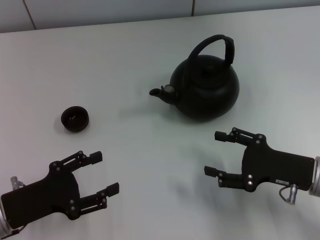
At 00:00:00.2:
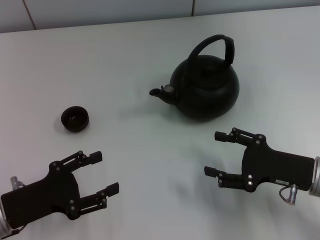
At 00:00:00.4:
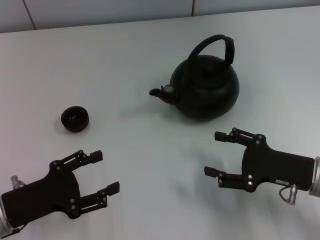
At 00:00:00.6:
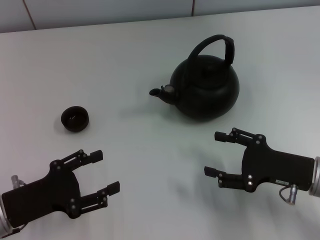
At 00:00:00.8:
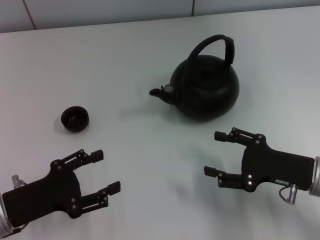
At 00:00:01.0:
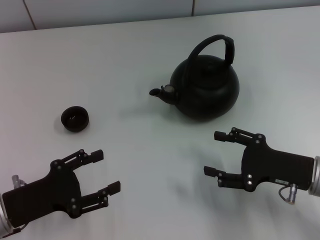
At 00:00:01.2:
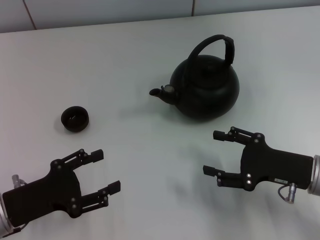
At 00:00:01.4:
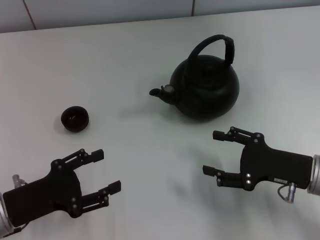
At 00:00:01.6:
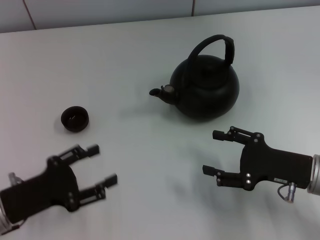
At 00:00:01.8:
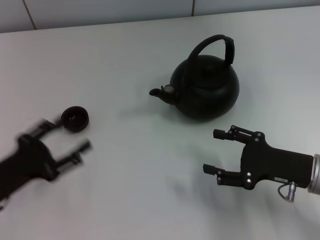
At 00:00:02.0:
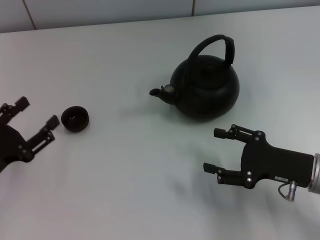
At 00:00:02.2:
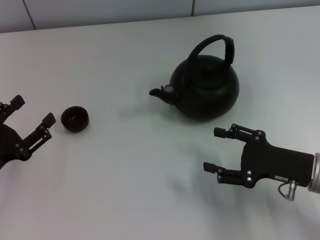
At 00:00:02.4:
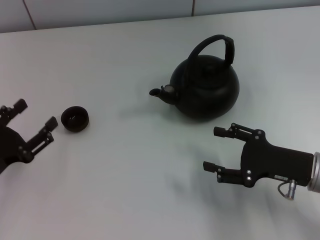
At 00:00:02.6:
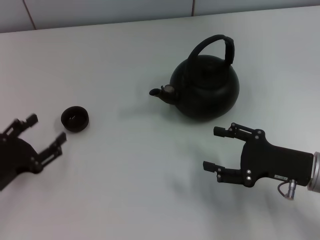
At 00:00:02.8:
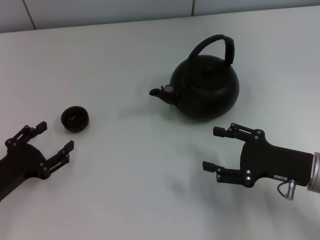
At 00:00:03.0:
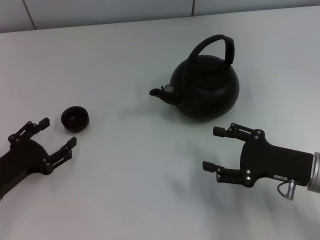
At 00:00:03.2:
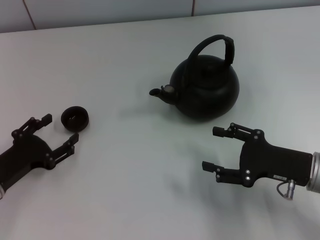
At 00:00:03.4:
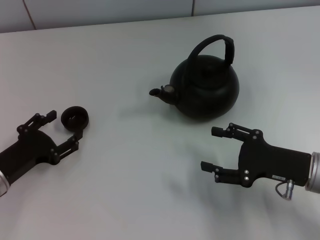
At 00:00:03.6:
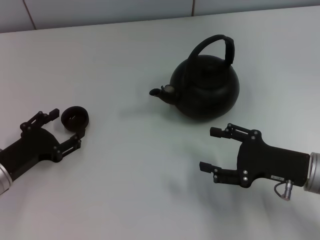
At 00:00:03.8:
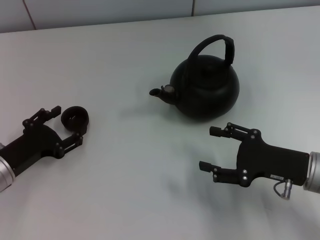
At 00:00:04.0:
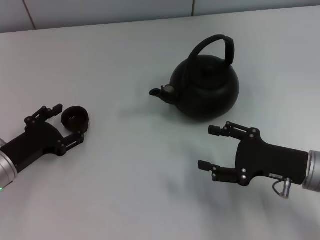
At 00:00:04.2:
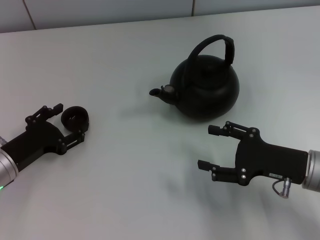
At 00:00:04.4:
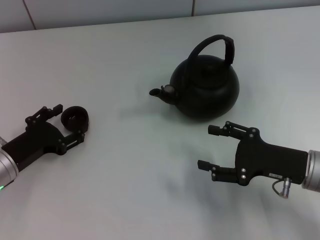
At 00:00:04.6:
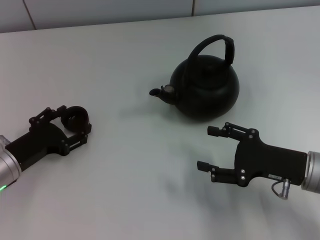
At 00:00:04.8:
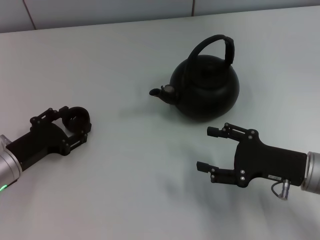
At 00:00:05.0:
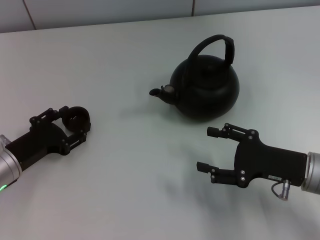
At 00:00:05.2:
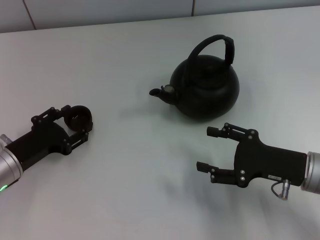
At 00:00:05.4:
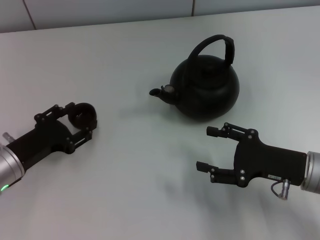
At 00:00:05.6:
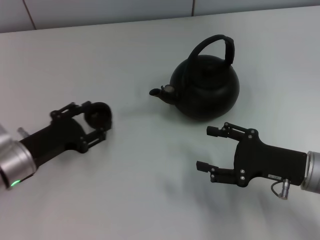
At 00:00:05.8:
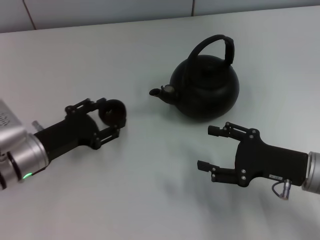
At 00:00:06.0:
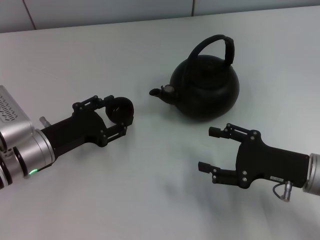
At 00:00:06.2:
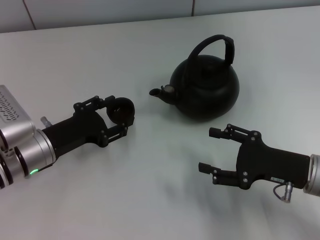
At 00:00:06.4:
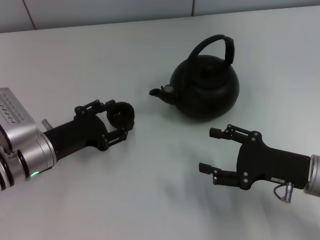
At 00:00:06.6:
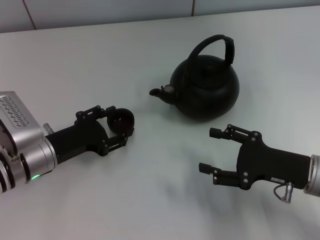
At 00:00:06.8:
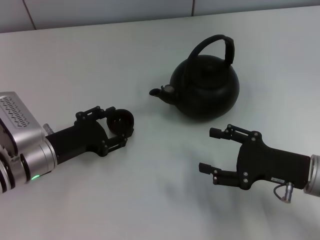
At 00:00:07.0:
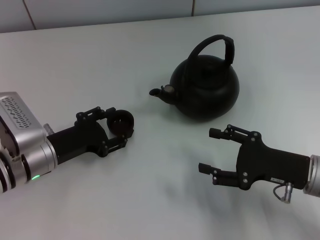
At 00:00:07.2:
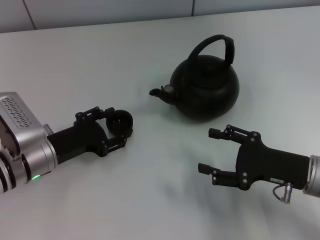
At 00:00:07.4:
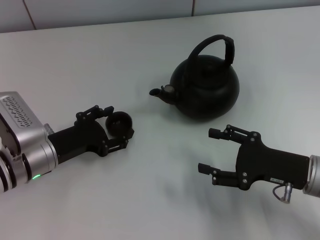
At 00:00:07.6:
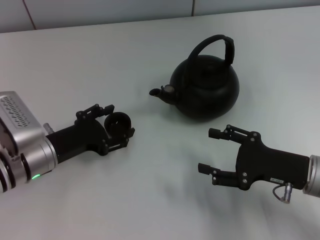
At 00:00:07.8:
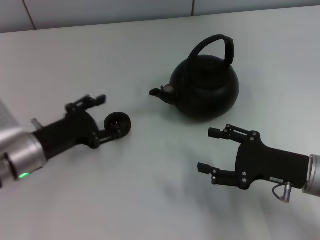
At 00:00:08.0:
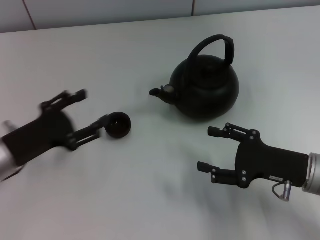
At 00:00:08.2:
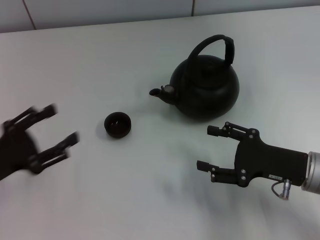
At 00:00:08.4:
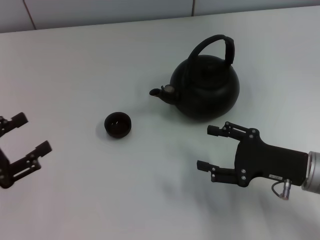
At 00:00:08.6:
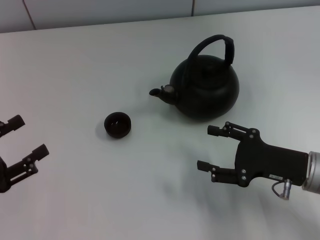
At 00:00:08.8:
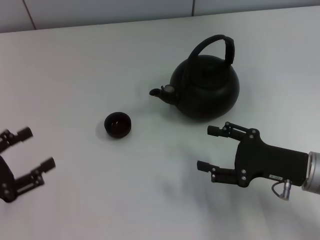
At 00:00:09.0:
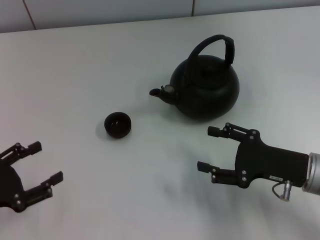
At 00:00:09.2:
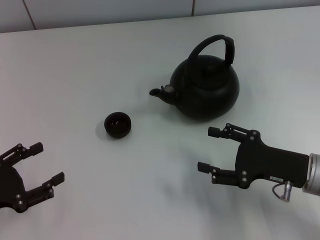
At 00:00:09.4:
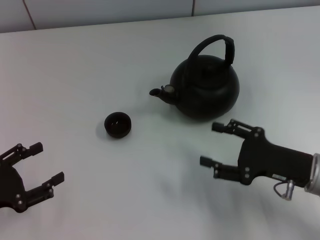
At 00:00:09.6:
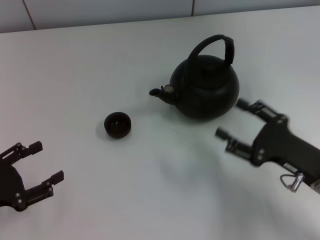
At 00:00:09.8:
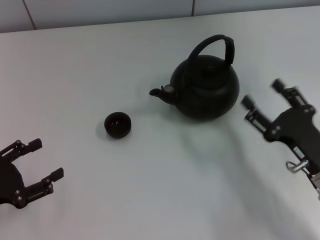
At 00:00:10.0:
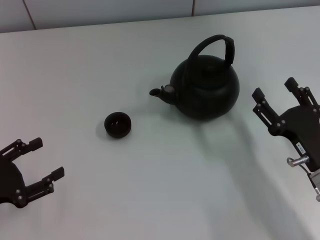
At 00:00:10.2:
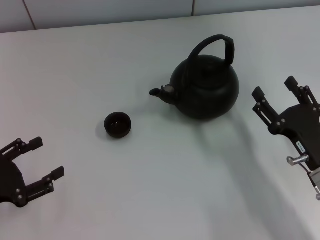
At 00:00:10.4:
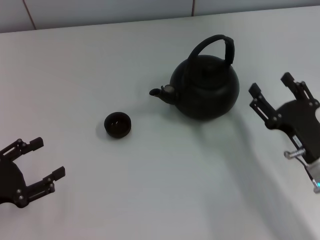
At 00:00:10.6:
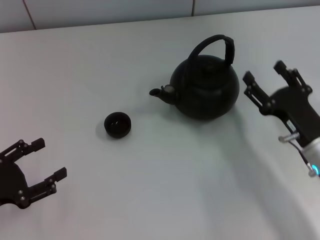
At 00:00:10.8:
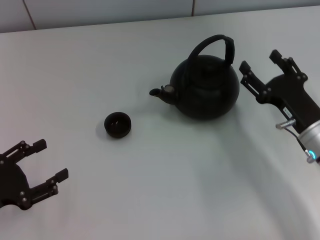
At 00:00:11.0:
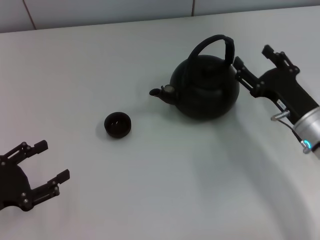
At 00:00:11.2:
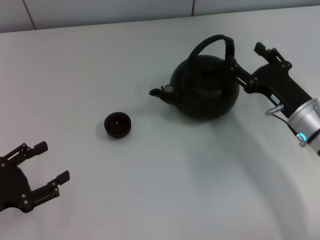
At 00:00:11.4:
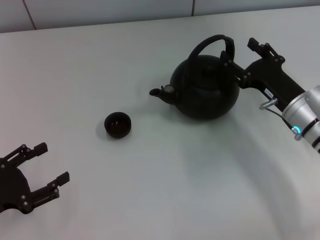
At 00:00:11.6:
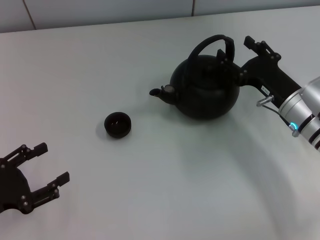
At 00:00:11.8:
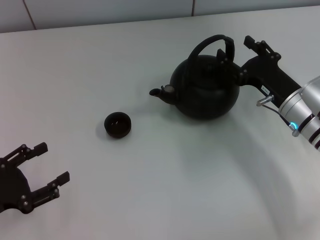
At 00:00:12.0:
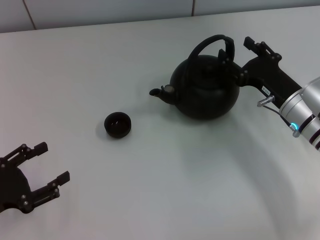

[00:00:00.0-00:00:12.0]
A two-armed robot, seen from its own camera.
Task of the whole recording: Grasp the handle of the teapot with one hand and pour tea into the teacup.
Step, 00:00:00.0 to 00:00:05.6: Pick up the teacup with the left gripper.
Step, 00:00:05.8 to 00:00:08.0: Place the teacup in the center of view with the left gripper.
00:00:00.0 to 00:00:01.6: Neither gripper changes place.
00:00:03.0 to 00:00:04.4: The left gripper moves approximately 5 cm.
00:00:04.4 to 00:00:06.0: The left gripper travels to the right by about 5 cm, and closes.
00:00:06.0 to 00:00:07.6: The left gripper opens.
00:00:07.6 to 00:00:09.0: The left gripper goes some 15 cm to the left and backward.
00:00:10.4 to 00:00:12.0: The right gripper moves forward, some 10 cm.

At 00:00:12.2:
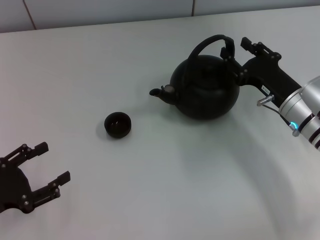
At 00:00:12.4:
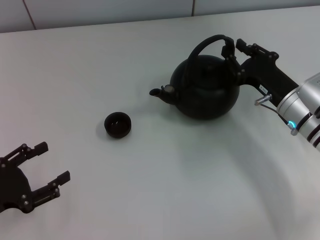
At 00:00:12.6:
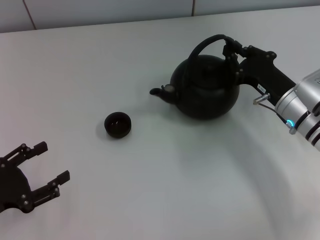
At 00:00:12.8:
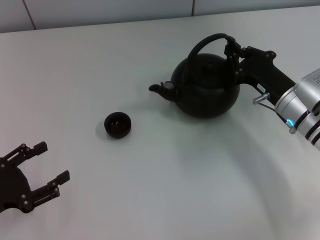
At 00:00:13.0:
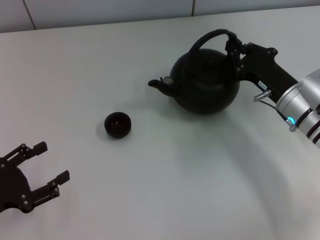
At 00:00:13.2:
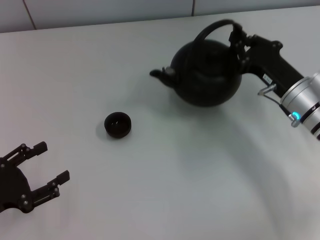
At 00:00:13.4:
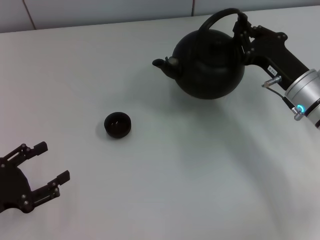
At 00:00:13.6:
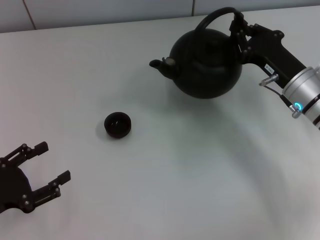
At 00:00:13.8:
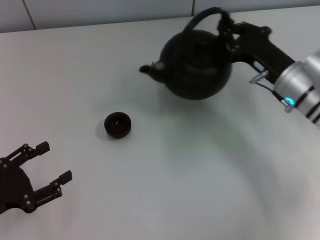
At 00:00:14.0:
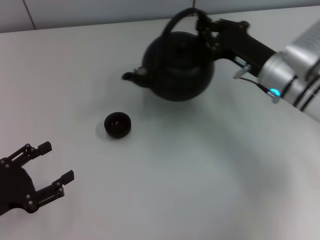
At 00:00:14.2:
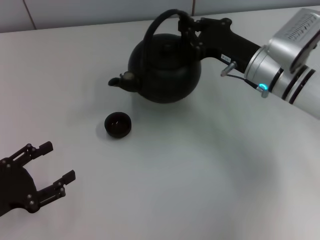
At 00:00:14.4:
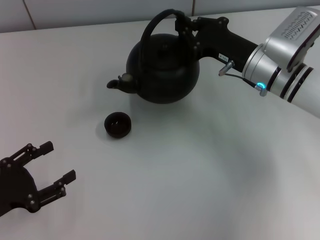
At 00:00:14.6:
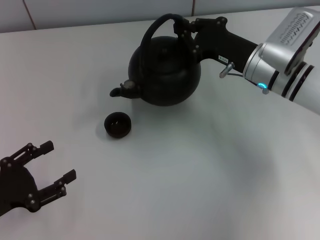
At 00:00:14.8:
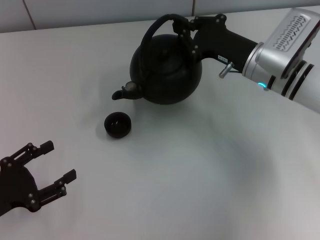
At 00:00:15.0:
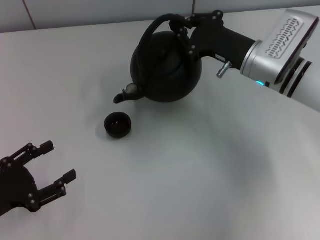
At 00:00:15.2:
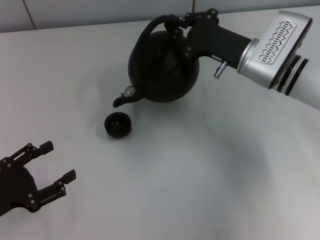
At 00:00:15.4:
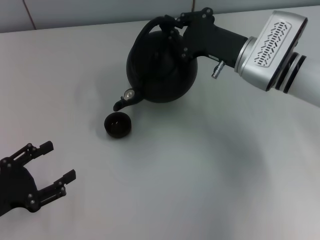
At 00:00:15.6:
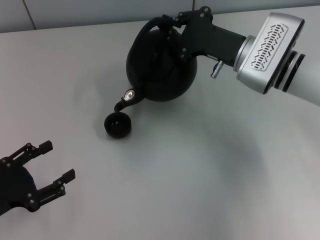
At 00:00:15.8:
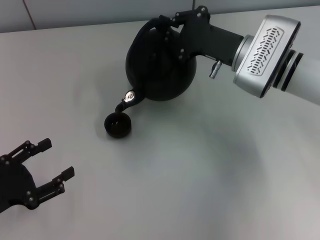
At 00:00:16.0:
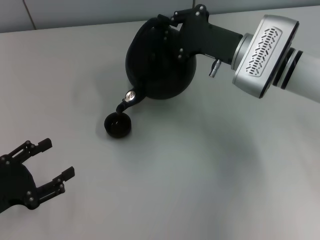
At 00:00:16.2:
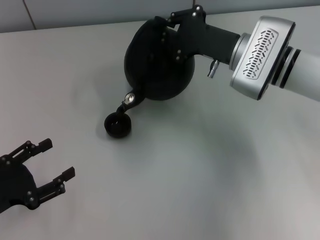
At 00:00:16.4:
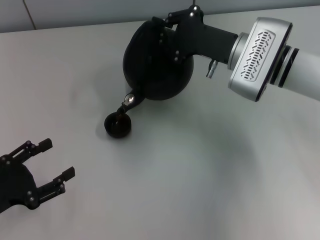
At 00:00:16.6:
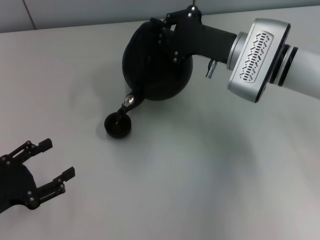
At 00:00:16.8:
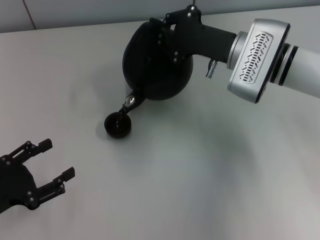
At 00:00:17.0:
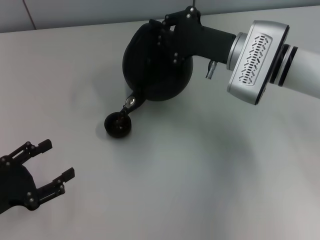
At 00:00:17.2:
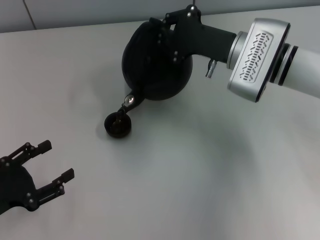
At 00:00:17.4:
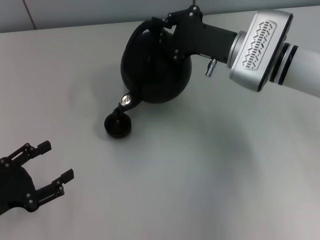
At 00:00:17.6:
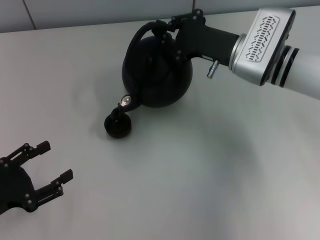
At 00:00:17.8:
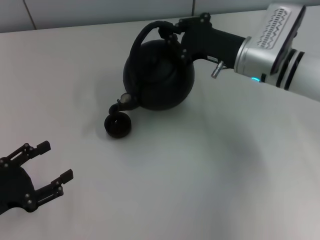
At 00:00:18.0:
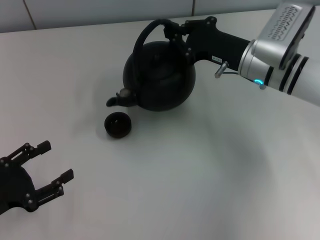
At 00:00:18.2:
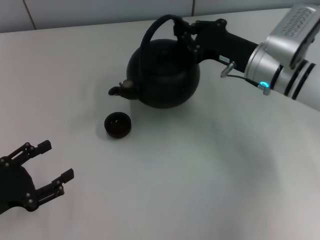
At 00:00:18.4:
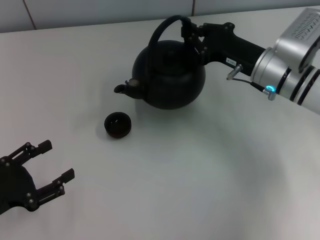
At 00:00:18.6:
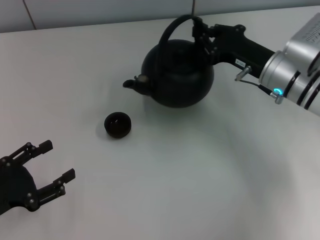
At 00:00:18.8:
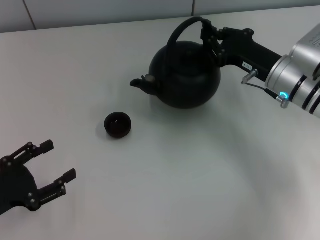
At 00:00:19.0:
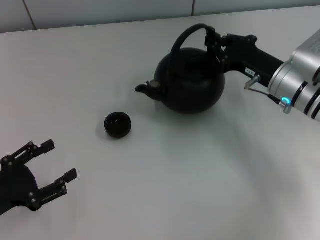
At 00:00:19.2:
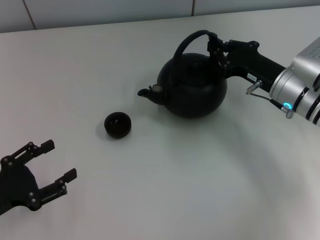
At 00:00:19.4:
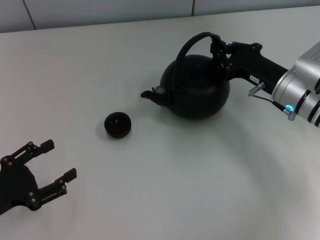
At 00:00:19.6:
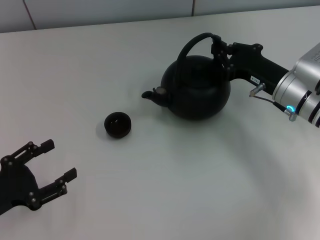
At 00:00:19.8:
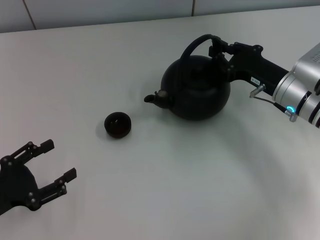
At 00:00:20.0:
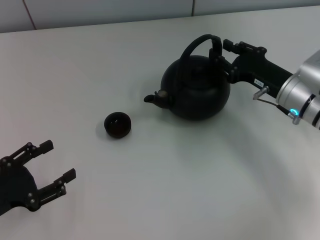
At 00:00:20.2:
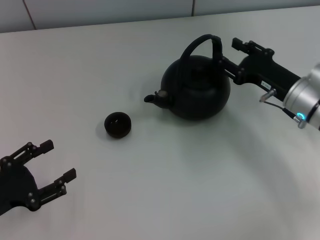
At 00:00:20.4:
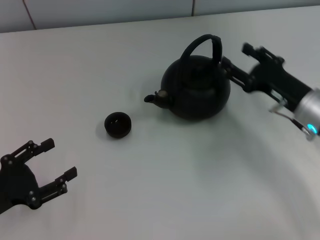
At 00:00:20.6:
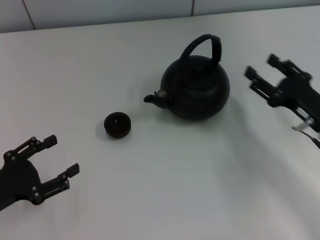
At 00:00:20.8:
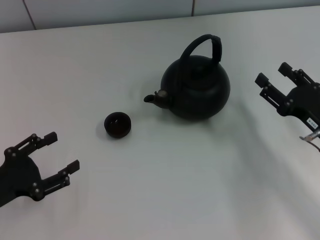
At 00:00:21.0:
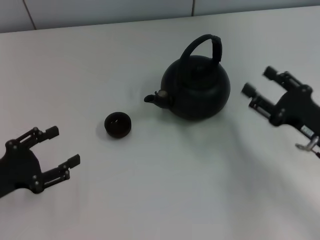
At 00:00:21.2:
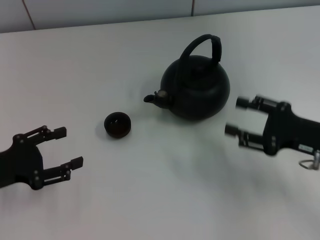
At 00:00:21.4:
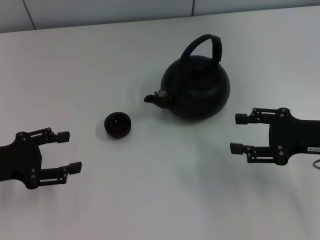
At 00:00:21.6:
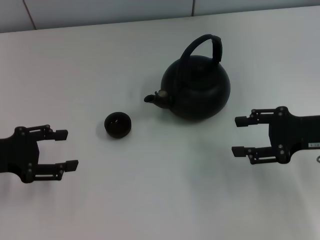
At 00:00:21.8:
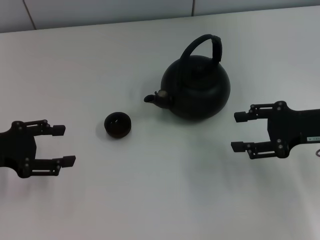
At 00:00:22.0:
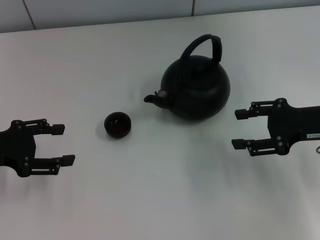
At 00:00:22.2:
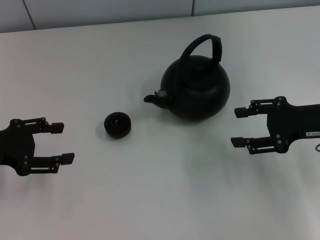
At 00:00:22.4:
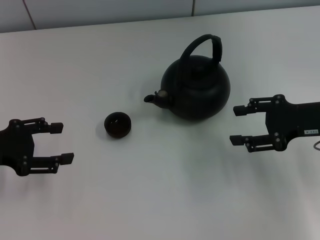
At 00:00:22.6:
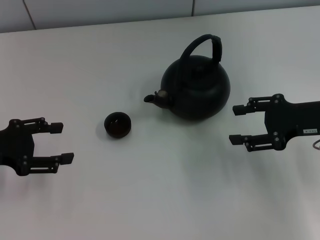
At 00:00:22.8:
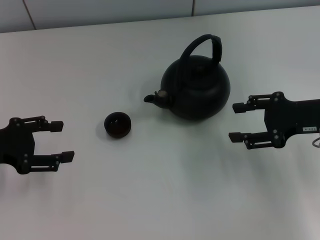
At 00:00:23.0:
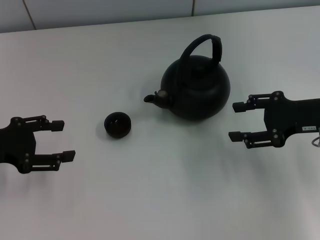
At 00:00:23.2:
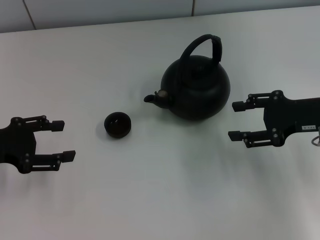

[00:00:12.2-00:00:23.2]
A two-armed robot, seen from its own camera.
Task of the whole recording: Grasp the handle of the teapot with one hand and pour tea into the teacup.
Step, 00:00:18.4 to 00:00:20.4: Put down the teapot with the right gripper.
00:00:12.2 to 00:00:13.8: The right gripper closes up.
00:00:13.8 to 00:00:15.4: The right gripper changes place by about 5 cm.
00:00:15.4 to 00:00:17.0: The grippers stay close to where they were, moving slightly.
00:00:18.4 to 00:00:20.0: The right gripper ends up approximately 5 cm from where it was.
00:00:20.0 to 00:00:21.6: The right gripper heads backward, to the right and upward, covering approximately 10 cm, and opens its fingers. The left gripper heads forward, covering about 10 cm.
00:00:21.6 to 00:00:23.2: The grippers move only a little.
